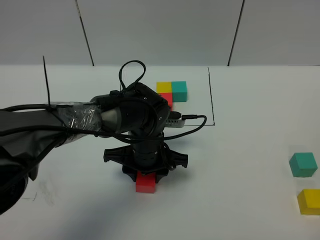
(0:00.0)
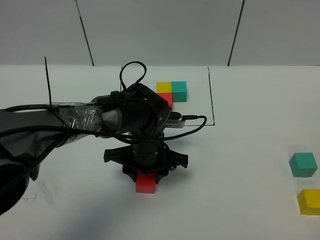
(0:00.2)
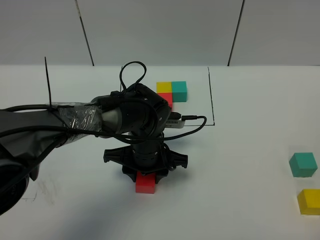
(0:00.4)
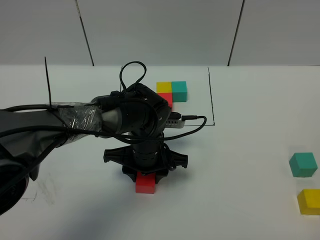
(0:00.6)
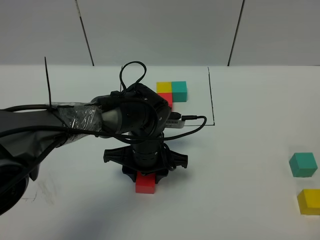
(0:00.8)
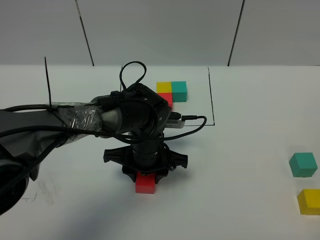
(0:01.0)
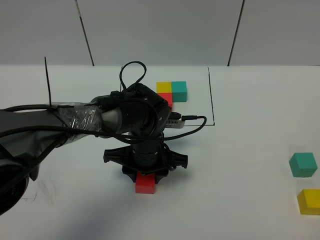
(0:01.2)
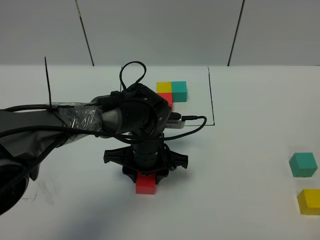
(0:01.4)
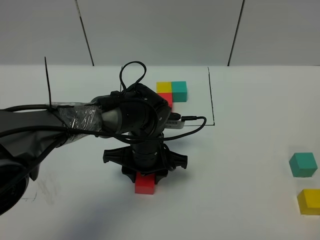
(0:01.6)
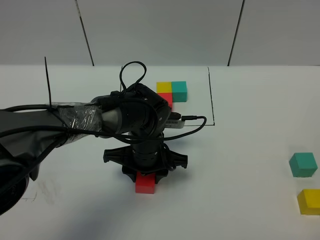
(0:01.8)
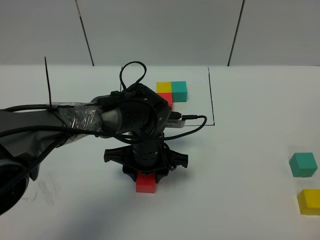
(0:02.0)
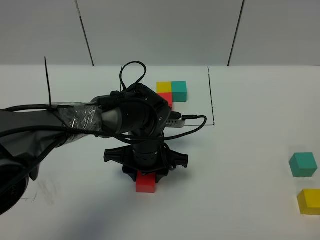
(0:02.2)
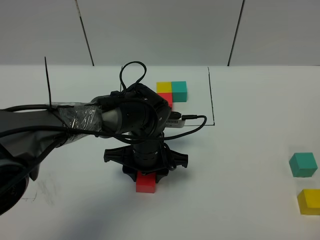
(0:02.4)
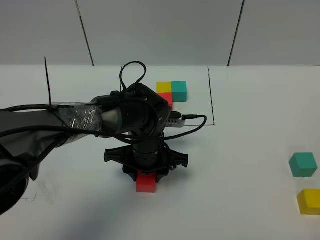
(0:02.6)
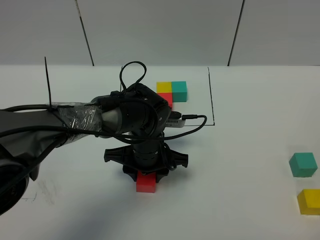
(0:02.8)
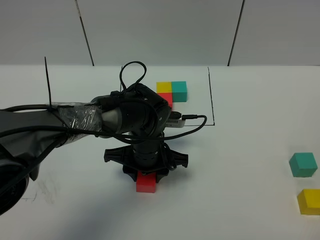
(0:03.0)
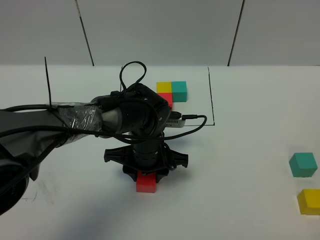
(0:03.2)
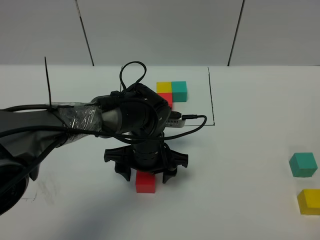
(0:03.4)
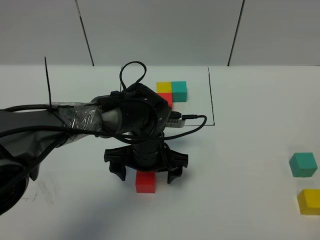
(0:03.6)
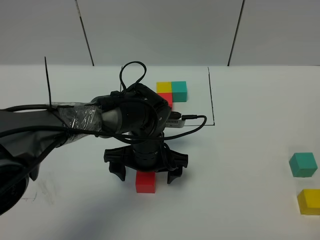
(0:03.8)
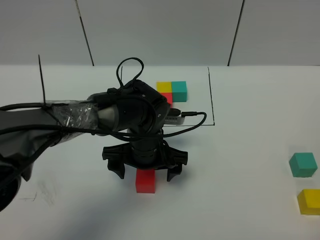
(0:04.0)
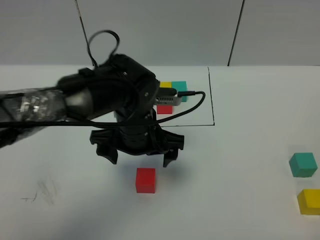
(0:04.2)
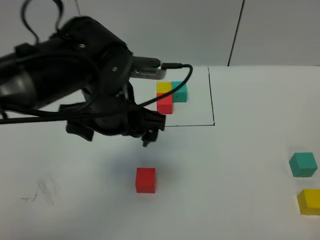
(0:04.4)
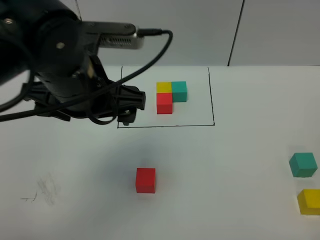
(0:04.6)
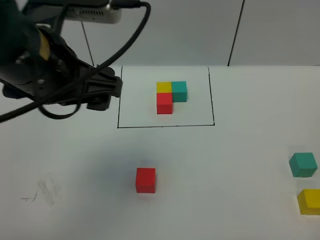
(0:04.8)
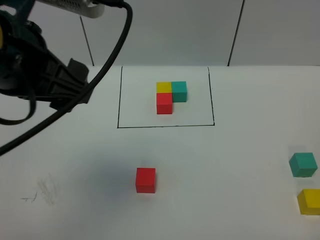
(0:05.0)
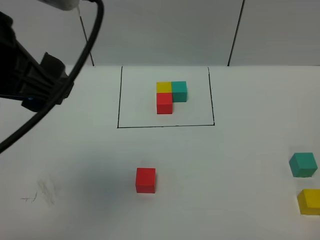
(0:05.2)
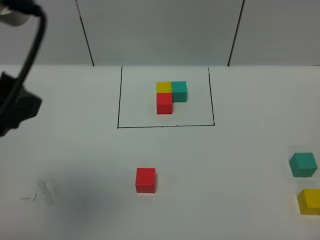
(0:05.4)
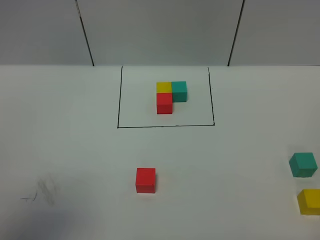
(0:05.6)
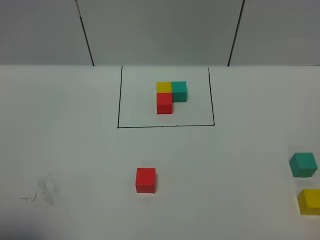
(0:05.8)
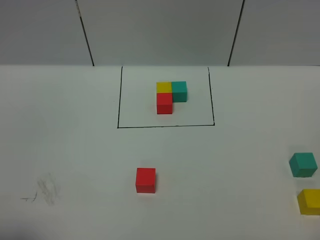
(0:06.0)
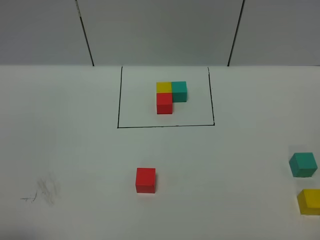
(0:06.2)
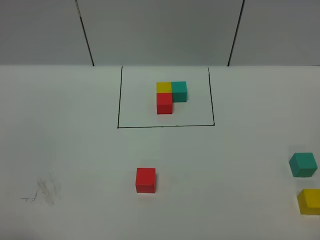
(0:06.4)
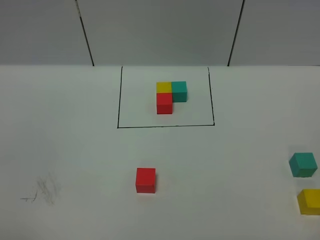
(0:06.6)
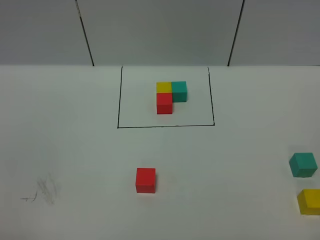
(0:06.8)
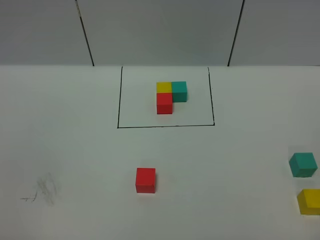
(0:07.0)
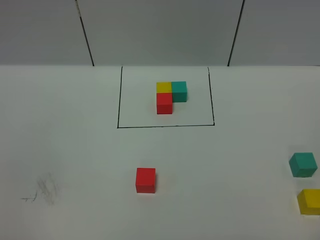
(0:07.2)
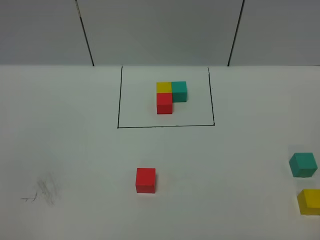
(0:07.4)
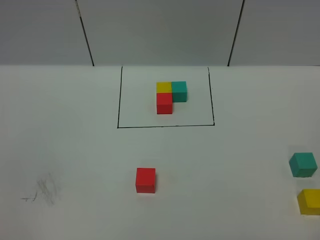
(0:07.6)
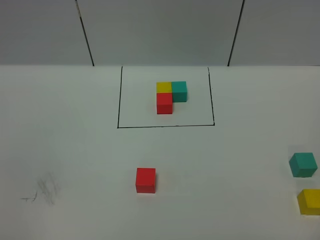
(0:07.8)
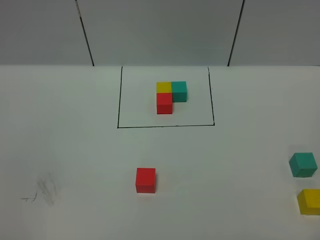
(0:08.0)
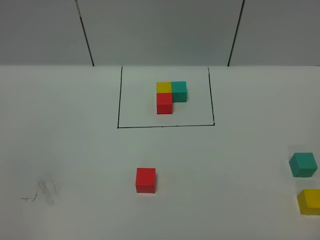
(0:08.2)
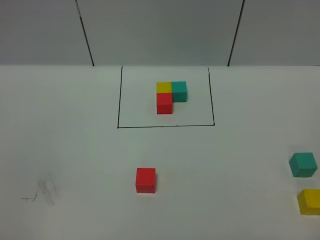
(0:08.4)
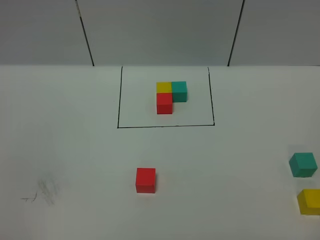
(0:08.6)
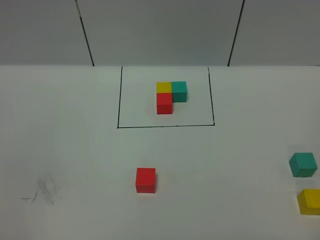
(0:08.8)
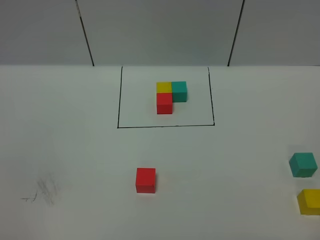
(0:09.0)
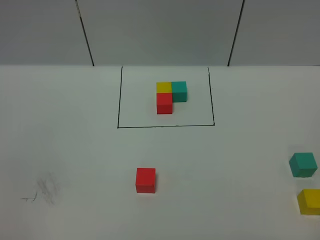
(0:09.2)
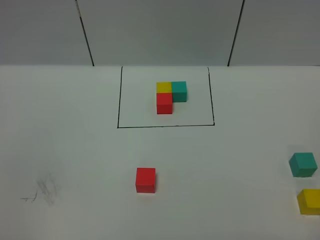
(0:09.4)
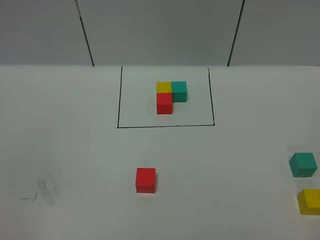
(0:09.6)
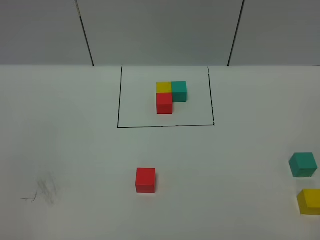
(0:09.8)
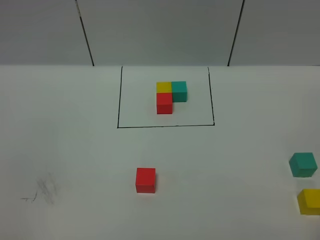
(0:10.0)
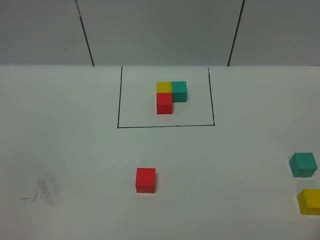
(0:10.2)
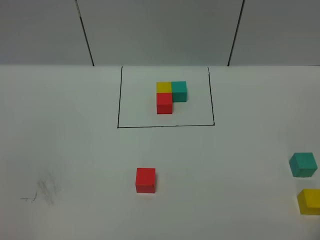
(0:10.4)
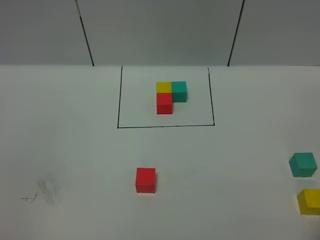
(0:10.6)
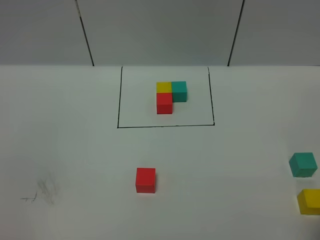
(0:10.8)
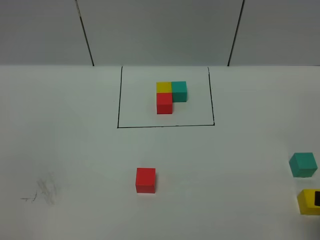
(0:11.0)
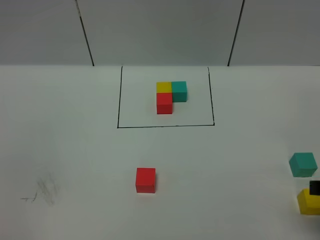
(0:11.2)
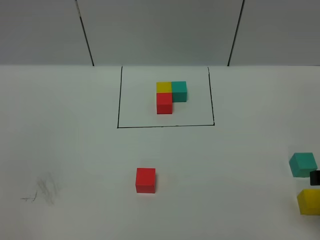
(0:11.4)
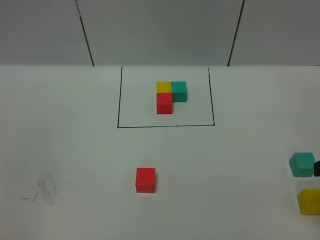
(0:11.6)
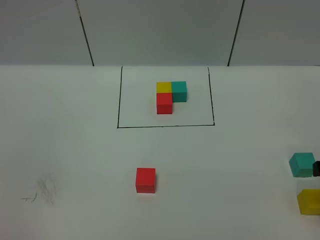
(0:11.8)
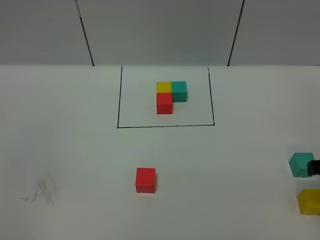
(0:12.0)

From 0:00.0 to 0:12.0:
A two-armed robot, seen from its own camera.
Task of the whole recording: According to the building block template in front, assemble the scattered blocks together.
Step, from 0:00.0 to 0:04.6: Put the red cube in the center of the table.
From 0:00.0 to 0:03.0: Both grippers stay put.
From 0:03.0 to 0:04.4: The left gripper is displaced upward by roughly 15 cm, and opens.
From 0:04.4 to 0:06.0: The left gripper shifts approximately 35 cm backward and to the left.
From 0:07.6 to 0:09.0: The two grippers keep their place.

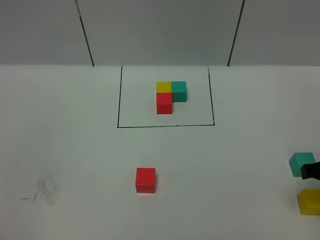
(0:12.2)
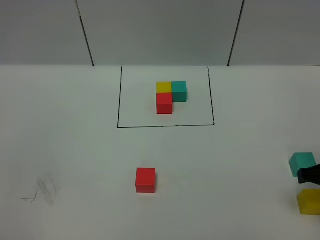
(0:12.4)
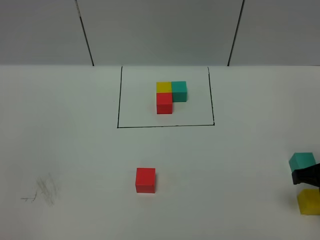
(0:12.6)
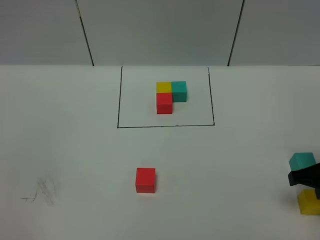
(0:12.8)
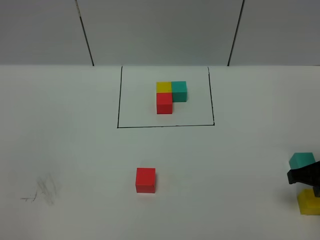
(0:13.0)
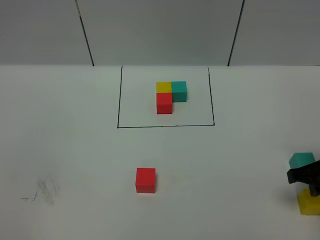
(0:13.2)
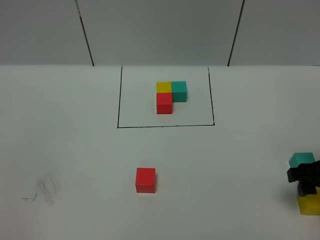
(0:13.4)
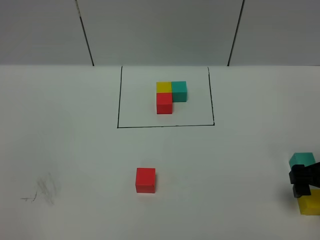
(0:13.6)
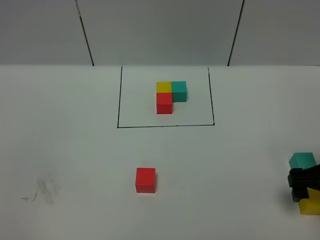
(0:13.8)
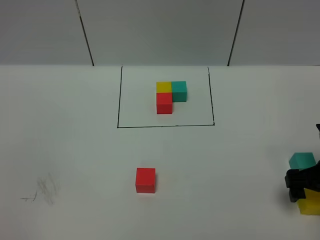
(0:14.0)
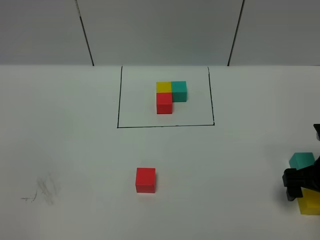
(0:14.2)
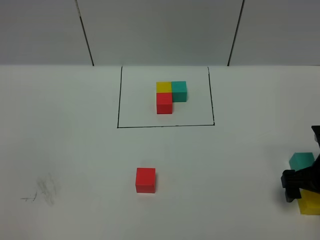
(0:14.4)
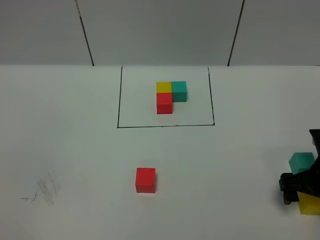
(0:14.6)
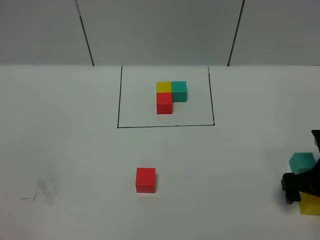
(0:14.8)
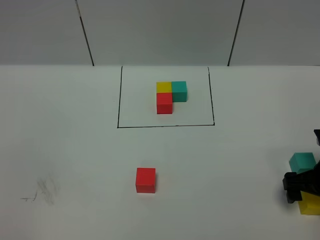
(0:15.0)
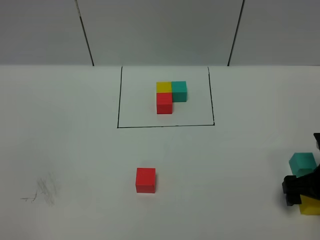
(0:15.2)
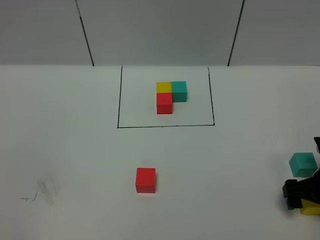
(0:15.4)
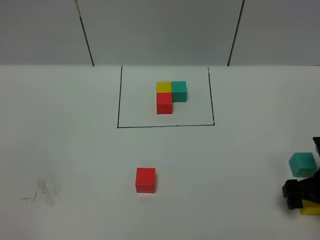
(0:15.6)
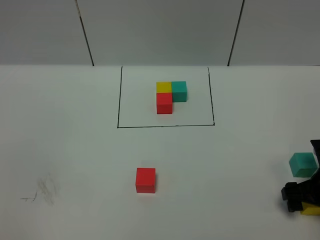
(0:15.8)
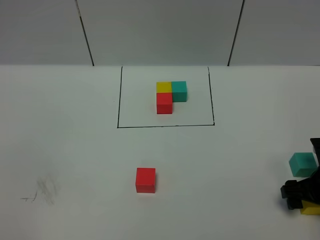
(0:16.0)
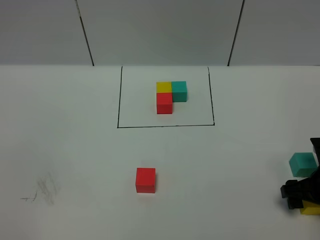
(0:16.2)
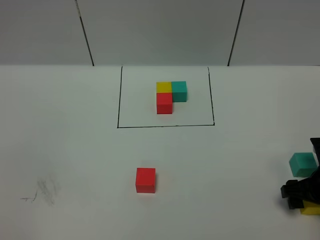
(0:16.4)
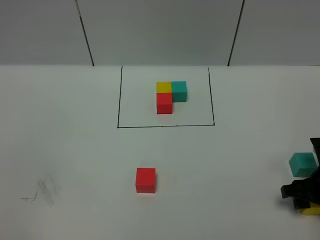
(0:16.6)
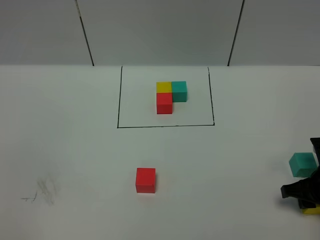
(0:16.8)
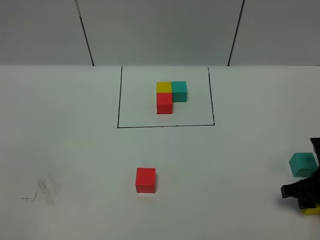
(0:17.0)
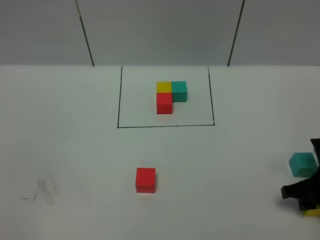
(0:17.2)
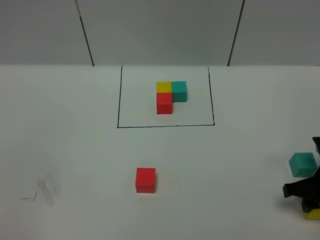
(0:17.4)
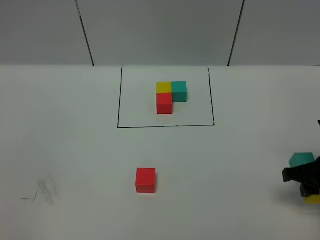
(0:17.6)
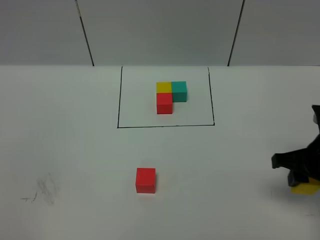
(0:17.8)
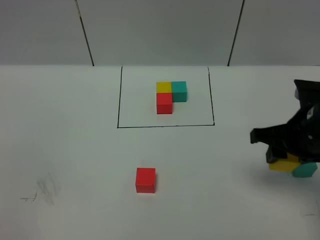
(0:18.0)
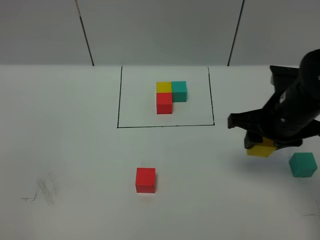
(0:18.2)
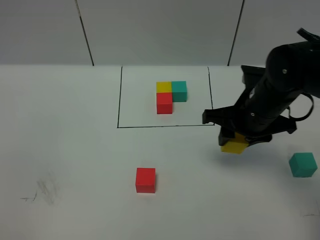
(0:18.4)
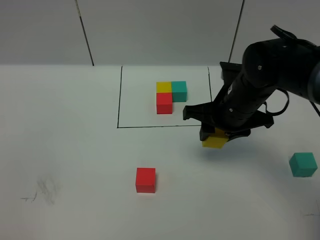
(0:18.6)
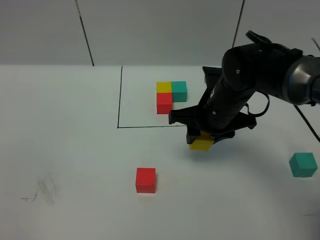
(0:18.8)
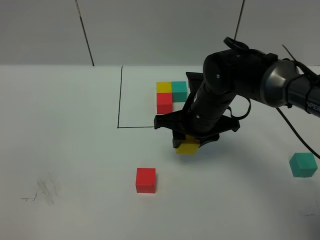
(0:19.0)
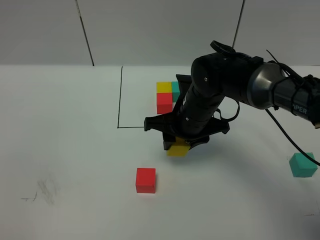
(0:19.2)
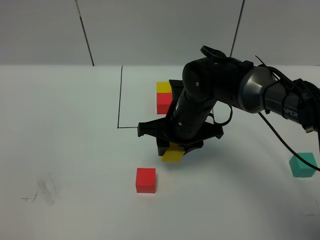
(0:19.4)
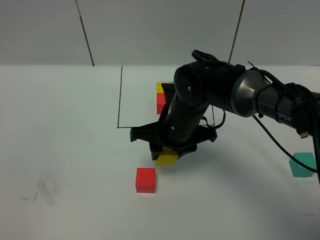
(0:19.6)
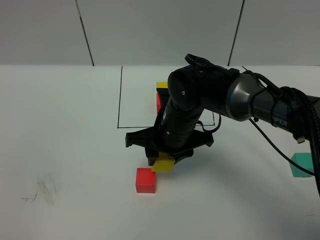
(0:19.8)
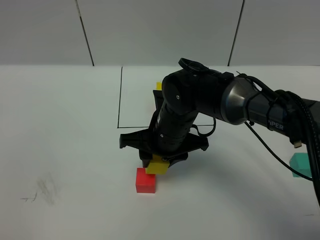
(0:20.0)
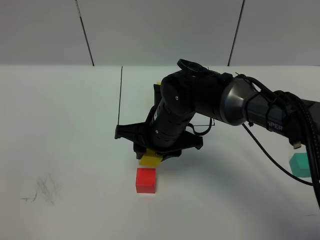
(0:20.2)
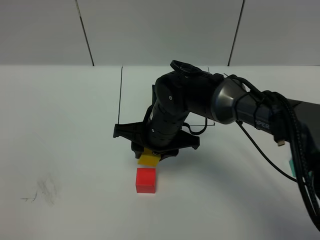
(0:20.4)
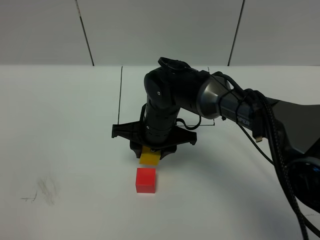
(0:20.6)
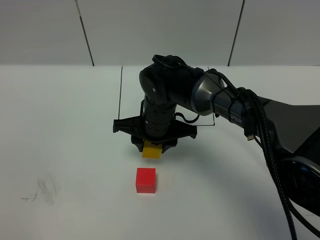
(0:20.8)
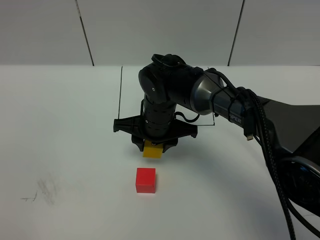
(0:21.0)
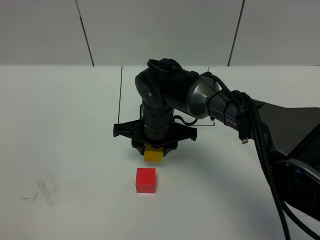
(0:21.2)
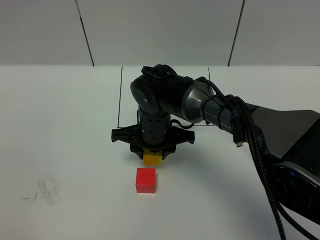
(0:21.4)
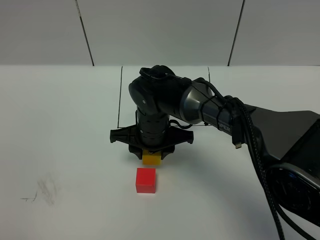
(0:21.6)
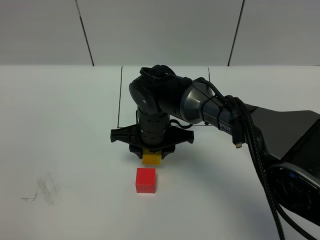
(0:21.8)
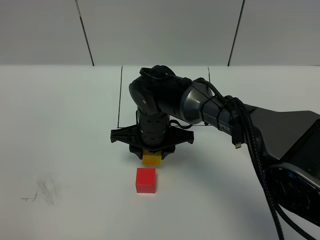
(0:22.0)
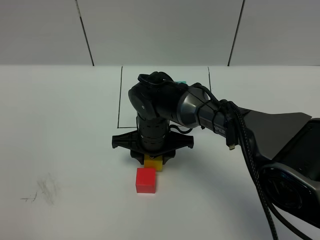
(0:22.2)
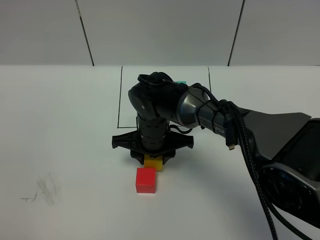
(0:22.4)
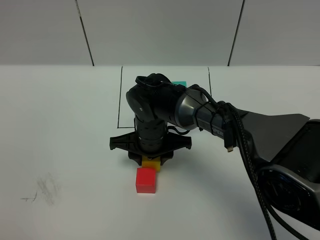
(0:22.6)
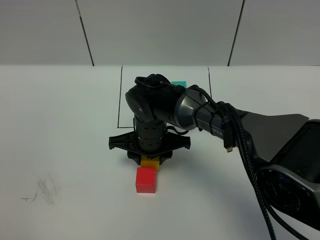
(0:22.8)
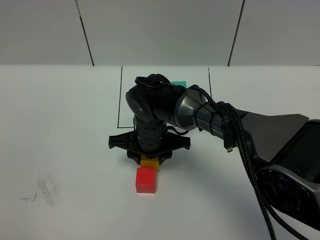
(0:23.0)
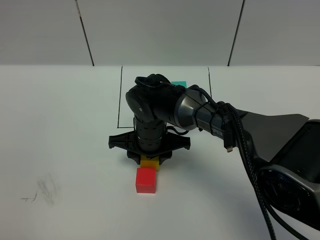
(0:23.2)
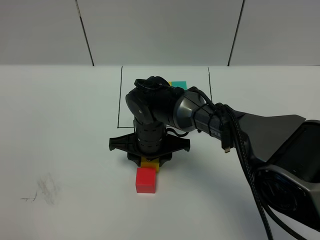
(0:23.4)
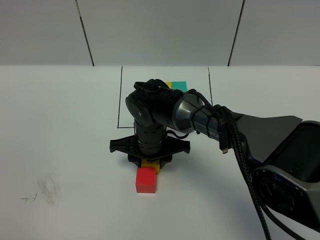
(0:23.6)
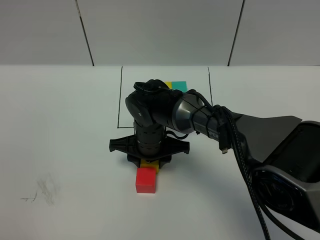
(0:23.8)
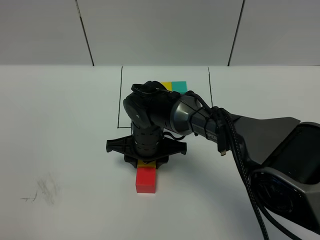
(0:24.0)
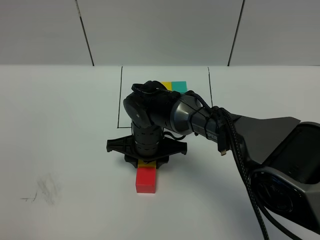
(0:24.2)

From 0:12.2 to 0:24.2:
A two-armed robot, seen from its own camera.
Task of the whole recording: According to the building block template in front, assemble the scattered blocks together.
From 0:12.2 to 0:13.8: The right gripper opens up.
From 0:13.8 to 0:15.2: There are only small adjustments of the grippers.
From 0:15.2 to 0:16.6: The two grippers keep their place.
From 0:16.6 to 0:18.2: The right gripper travels upward, to the left and forward by roughly 15 cm.
From 0:18.2 to 0:19.8: The right gripper heads to the left, covering some 15 cm.
From 0:19.8 to 0:21.2: The right gripper ends up roughly 5 cm from where it was.
From 0:21.2 to 0:24.2: The grippers stay close to where they were, moving slightly.
